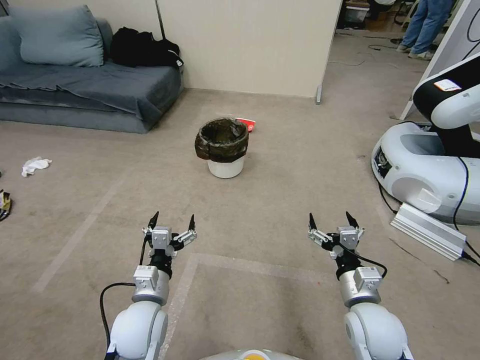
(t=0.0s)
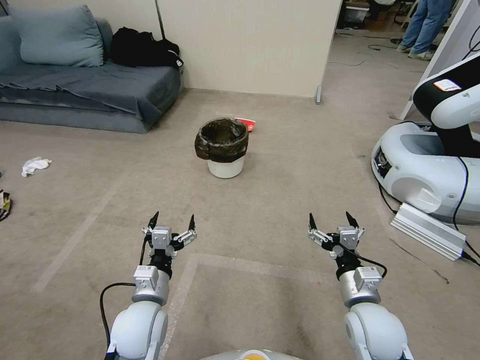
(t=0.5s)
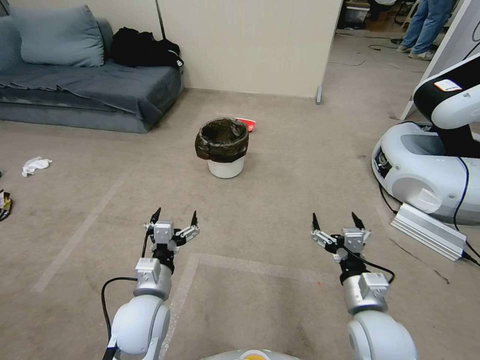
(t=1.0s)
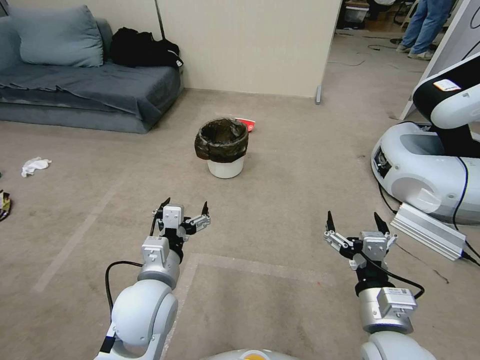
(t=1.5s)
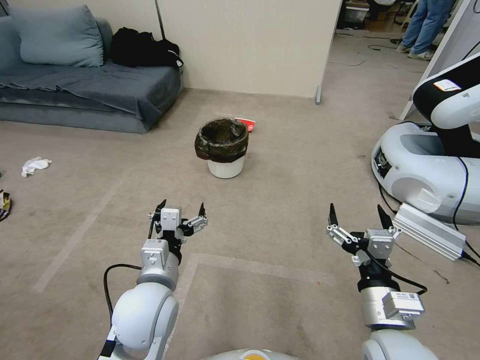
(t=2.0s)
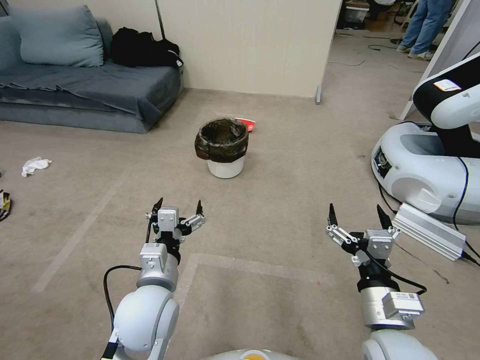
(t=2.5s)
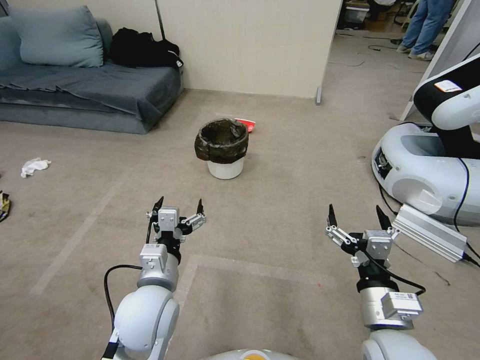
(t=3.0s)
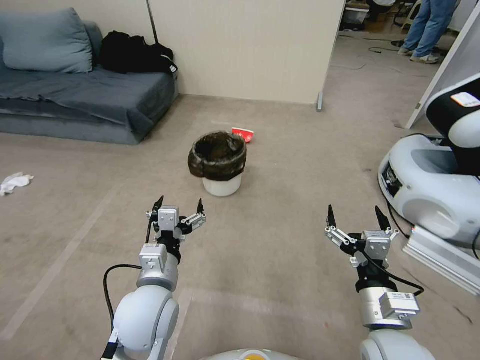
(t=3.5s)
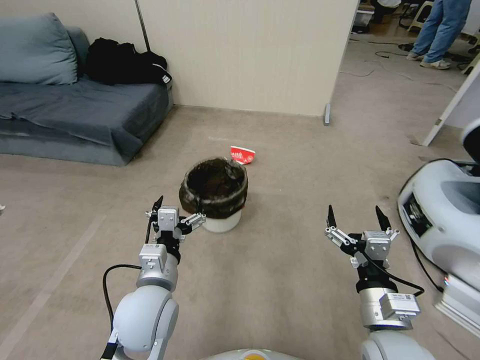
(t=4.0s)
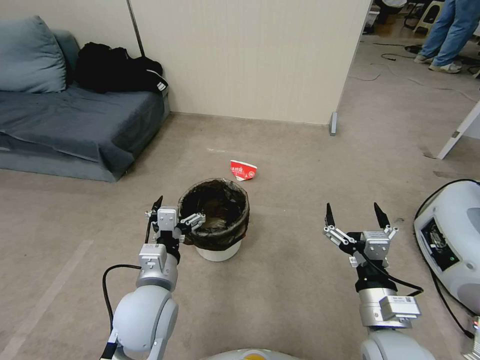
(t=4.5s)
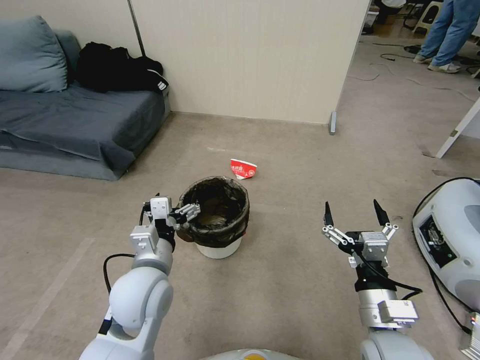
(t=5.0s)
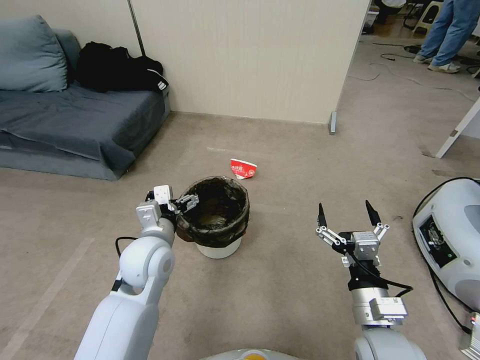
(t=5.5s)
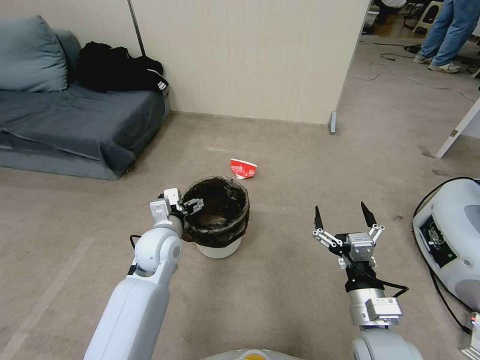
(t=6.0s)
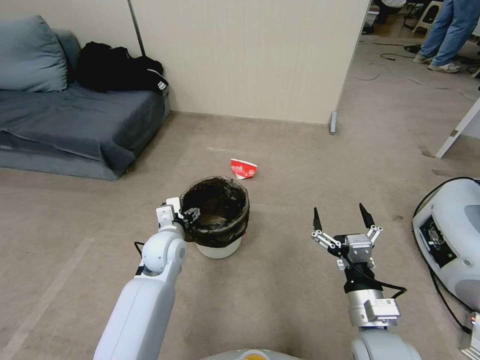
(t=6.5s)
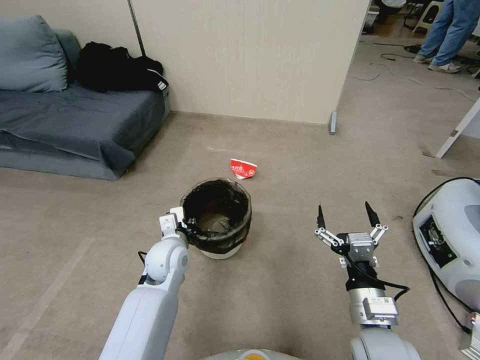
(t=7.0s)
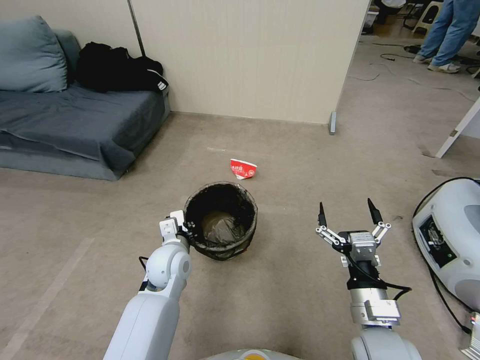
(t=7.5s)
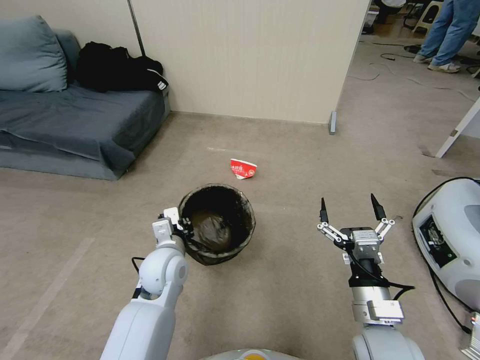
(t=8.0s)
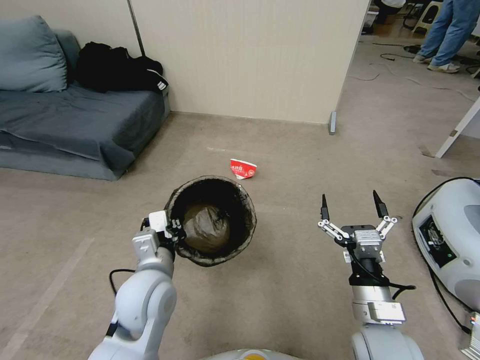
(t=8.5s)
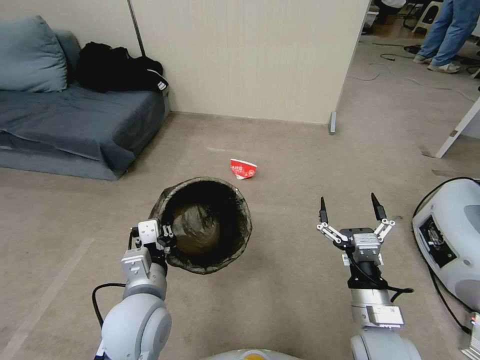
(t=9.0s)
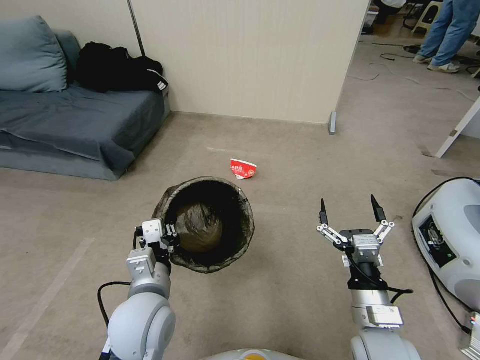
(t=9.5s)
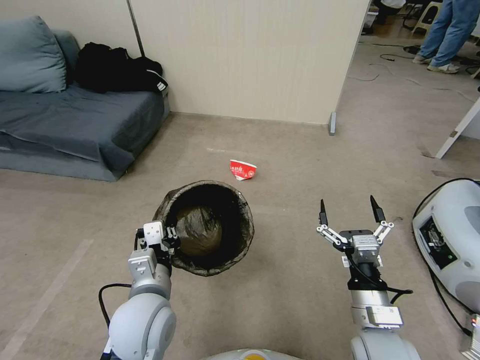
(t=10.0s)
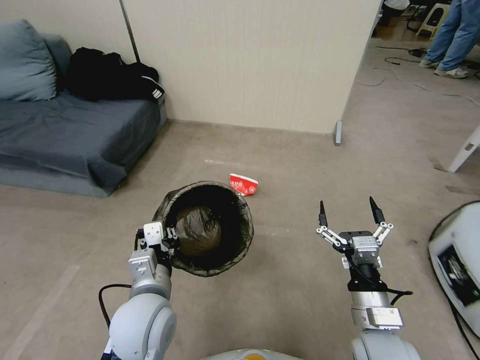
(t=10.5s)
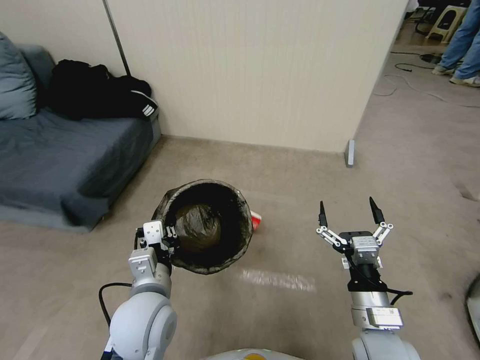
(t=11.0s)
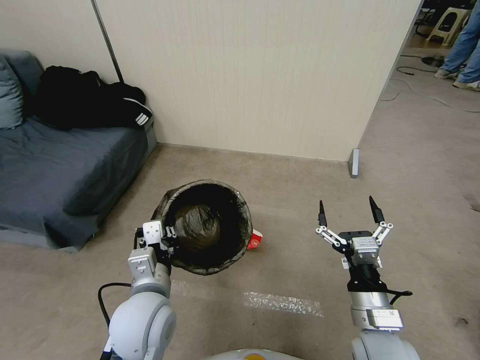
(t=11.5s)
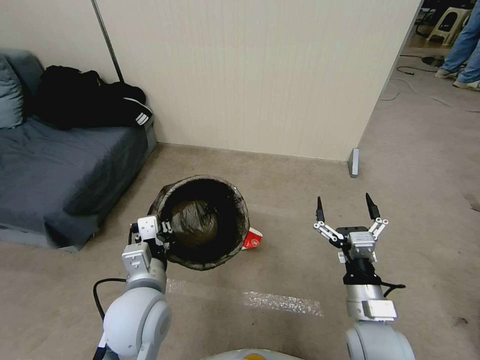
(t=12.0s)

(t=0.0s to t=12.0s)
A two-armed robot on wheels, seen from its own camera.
Task of the whole recording: Pick up the trash bin, then pick up the garbage from the floor and place it into the trash bin.
t=4.0s - t=6.0s: The left gripper moves forward, roughly 15 cm.
t=6.0s - t=8.0s: The left gripper closes its fingers.
t=8.0s - t=10.0s: The left gripper moves backward, some 10 cm.

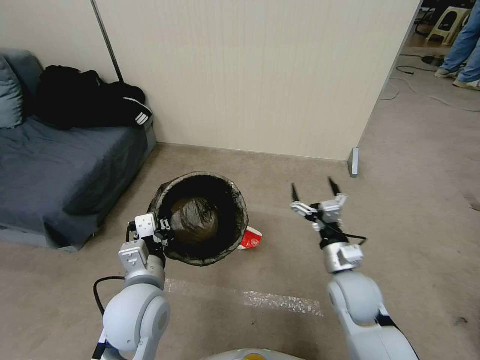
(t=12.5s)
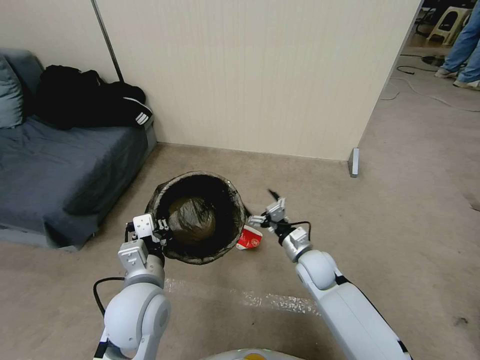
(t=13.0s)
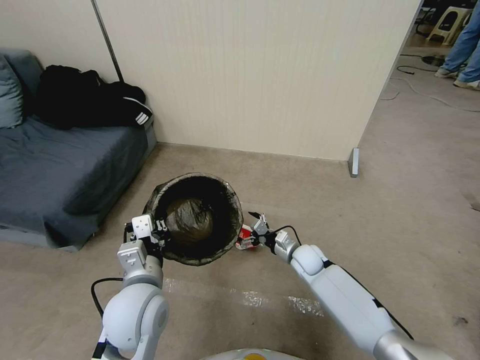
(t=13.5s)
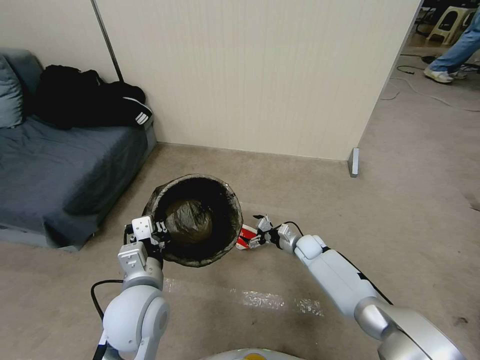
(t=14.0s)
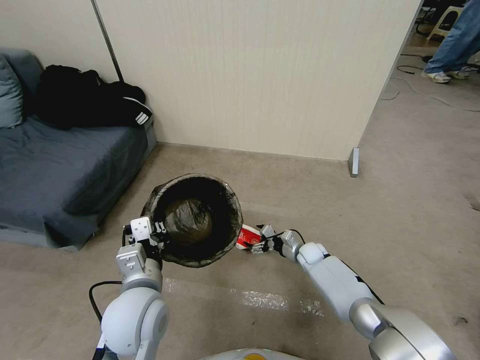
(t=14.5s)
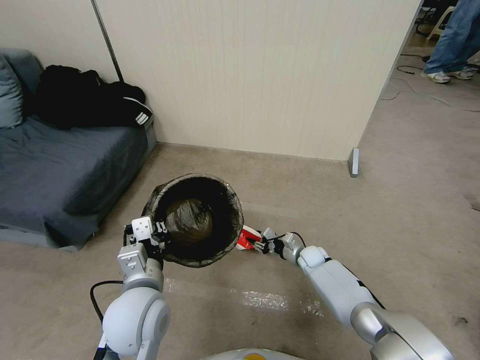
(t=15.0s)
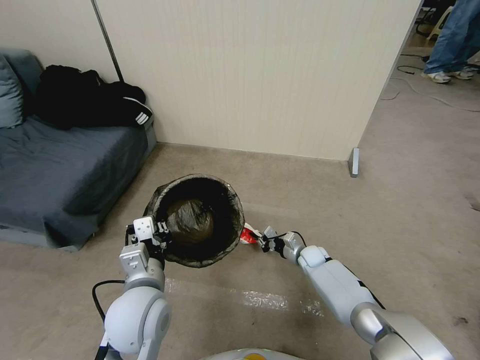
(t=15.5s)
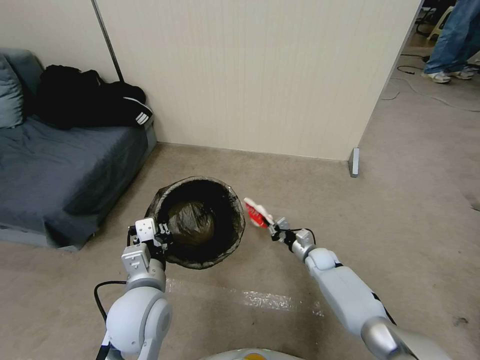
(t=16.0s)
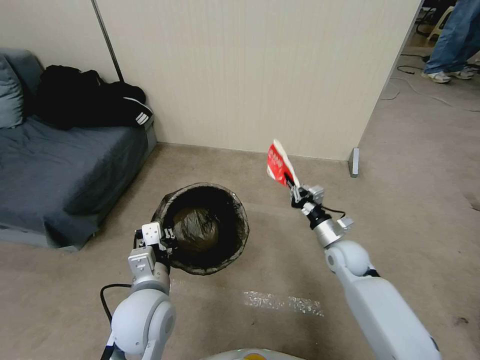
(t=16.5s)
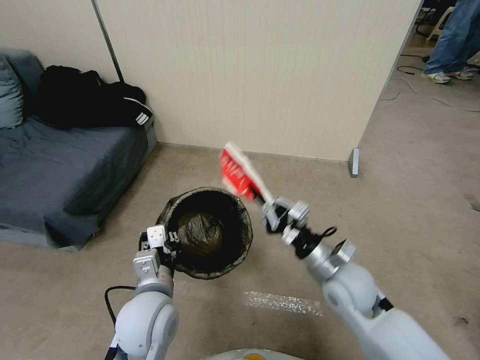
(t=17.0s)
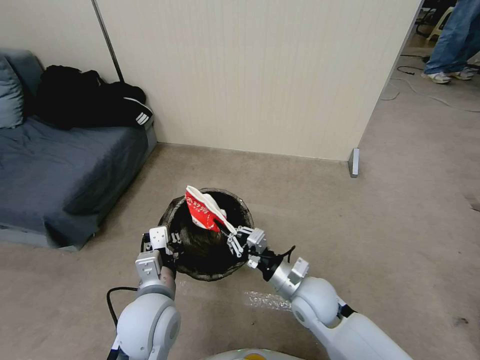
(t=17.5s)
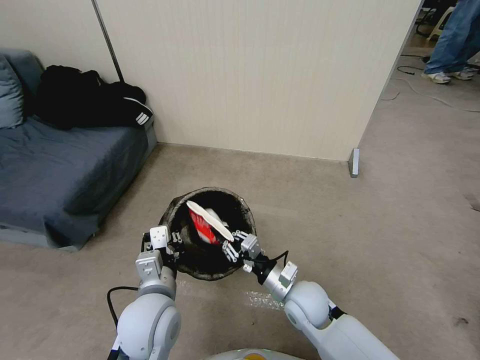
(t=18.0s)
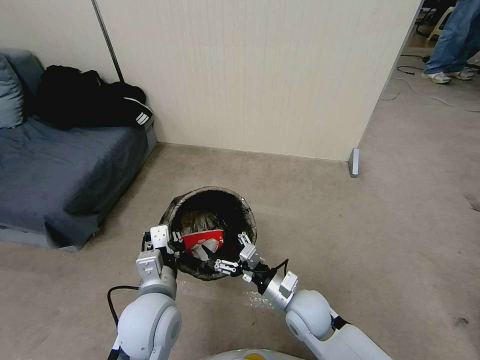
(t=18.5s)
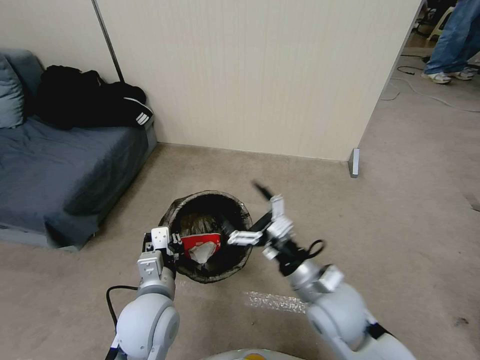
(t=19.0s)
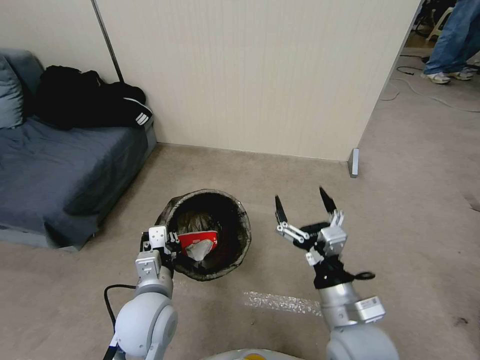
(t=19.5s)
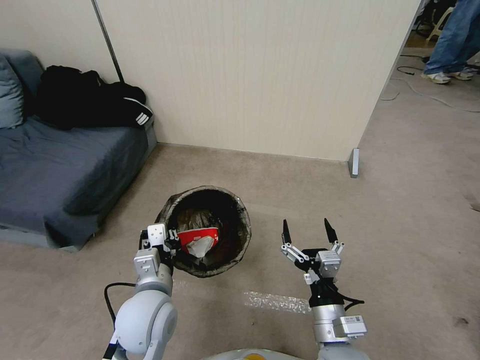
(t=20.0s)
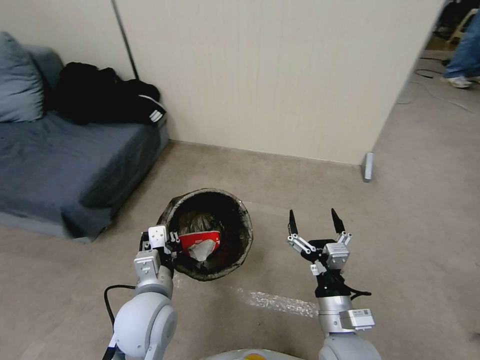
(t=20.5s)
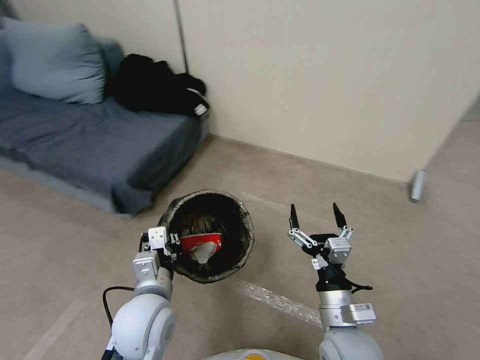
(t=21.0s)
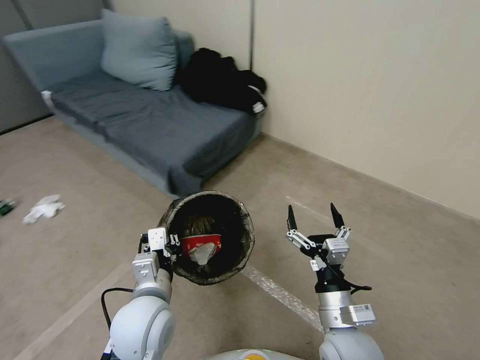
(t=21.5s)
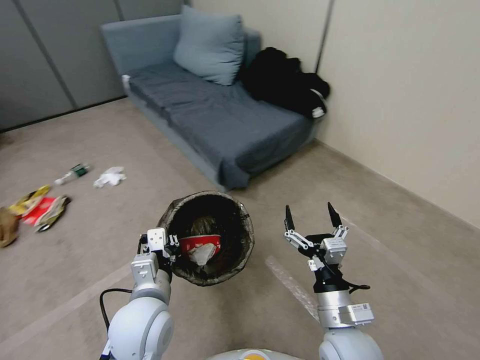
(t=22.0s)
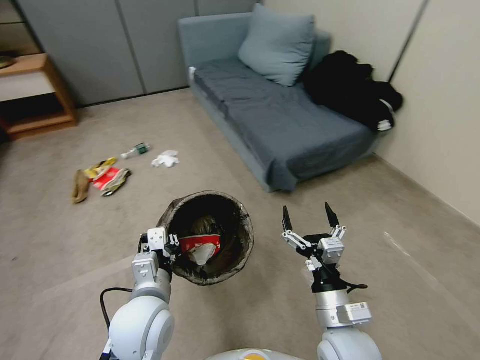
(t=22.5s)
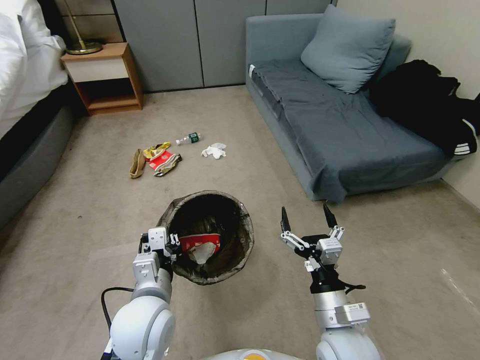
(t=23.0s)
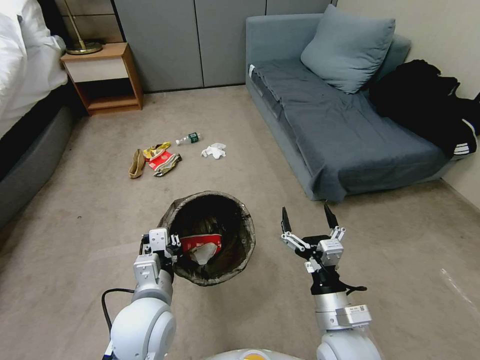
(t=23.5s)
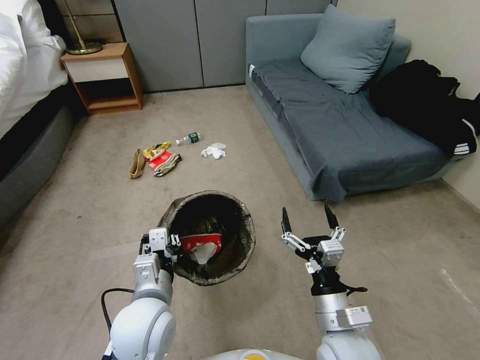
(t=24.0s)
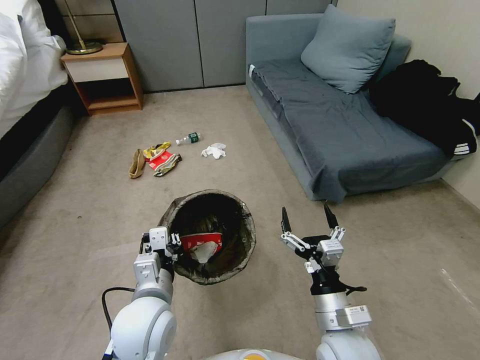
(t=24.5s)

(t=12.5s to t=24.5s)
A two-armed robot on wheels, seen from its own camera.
Task of the whole recording: Pick up the trash bin, then pick up the garbage from the floor and place it into the trash bin.
t=12.5s - t=14.5s: The right gripper goes some 25 cm downward and forward.
t=14.5s - t=16.5s: The right gripper moves upward and backward, about 20 cm, and closes its fingers.
t=16.5s - t=18.5s: The right gripper shifts some 20 cm to the left and backward, and opens.
t=18.5s - t=20.5s: The right gripper shifts approximately 10 cm backward and upward.

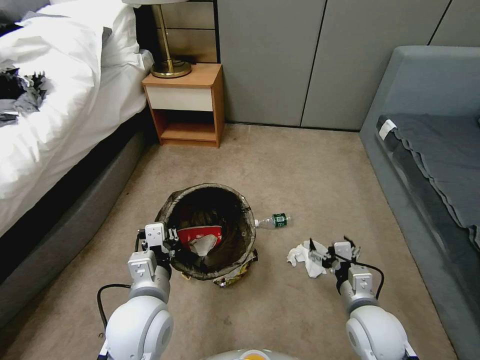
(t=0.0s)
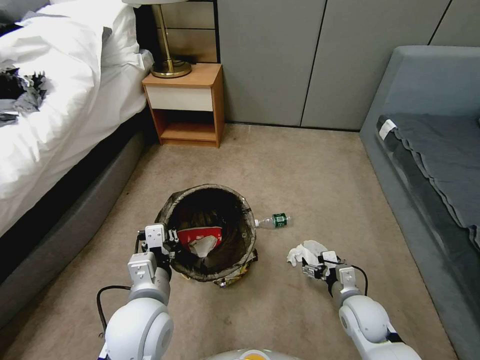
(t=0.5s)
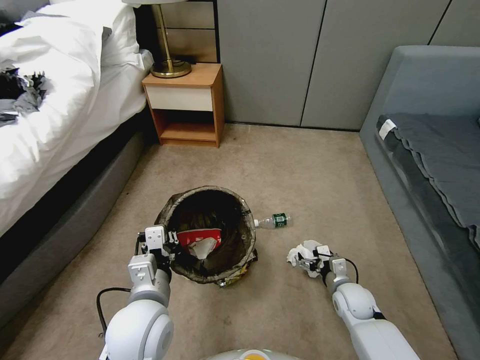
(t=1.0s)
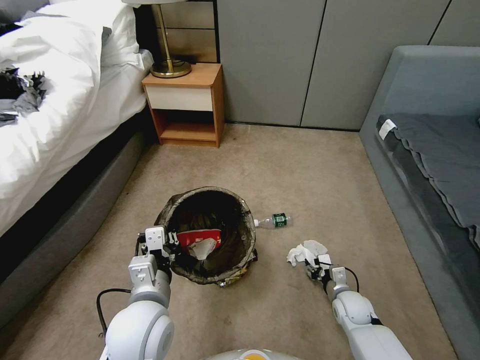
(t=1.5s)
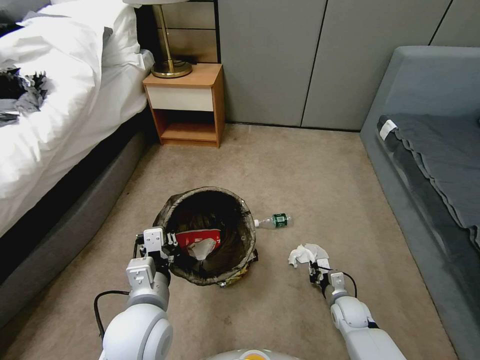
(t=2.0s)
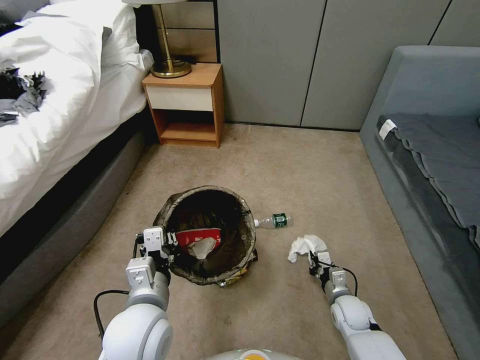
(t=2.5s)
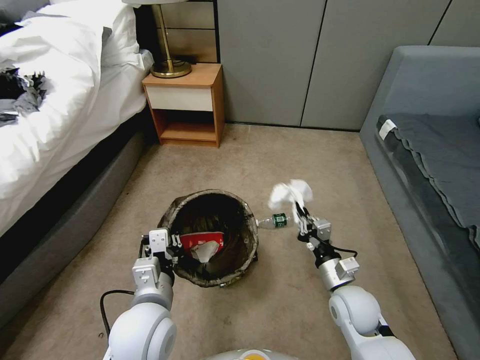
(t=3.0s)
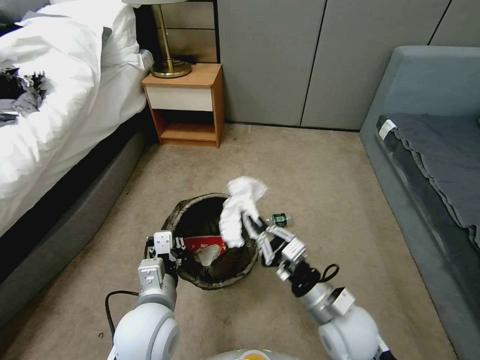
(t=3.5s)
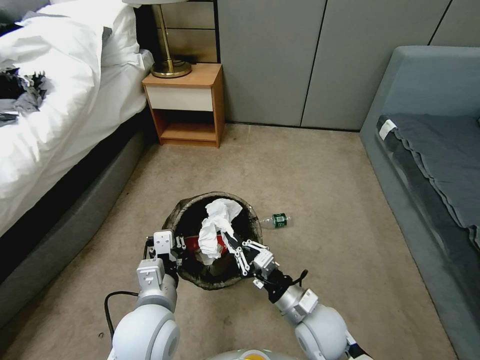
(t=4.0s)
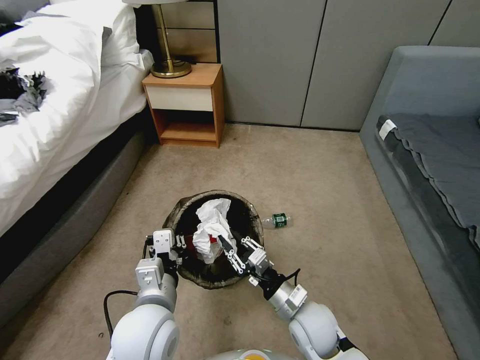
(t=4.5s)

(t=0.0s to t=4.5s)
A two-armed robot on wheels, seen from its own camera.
Task of the whole recording: Pick up the trash bin, then pick up the garbage from the floor and place it into the trash bin.
t=0.0s - t=2.0s: The right gripper travels downward by approximately 20 cm, and closes.
t=2.0s - t=4.5s: The right gripper goes approximately 20 cm to the left and upward.
